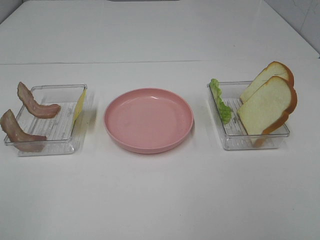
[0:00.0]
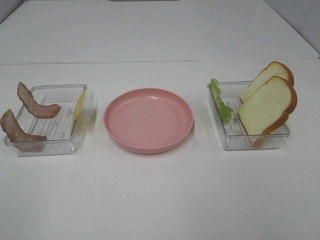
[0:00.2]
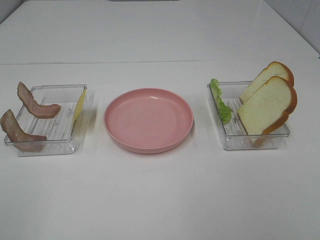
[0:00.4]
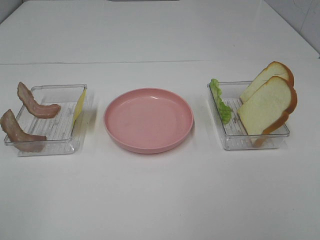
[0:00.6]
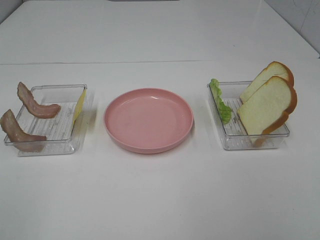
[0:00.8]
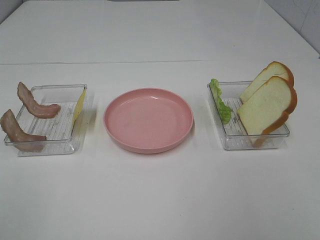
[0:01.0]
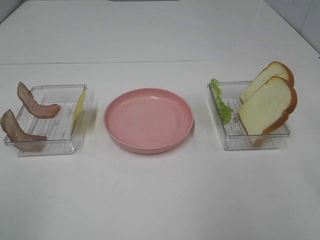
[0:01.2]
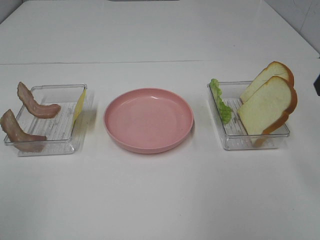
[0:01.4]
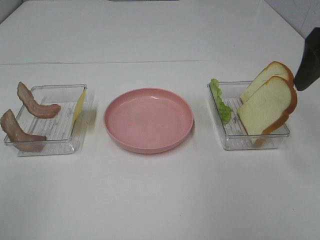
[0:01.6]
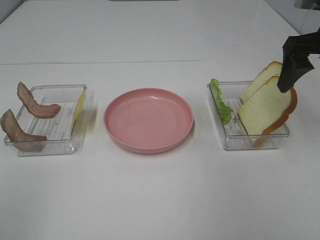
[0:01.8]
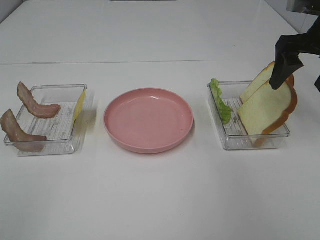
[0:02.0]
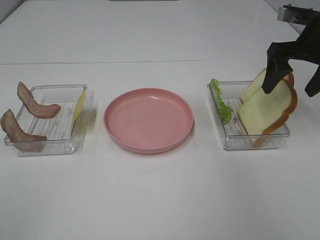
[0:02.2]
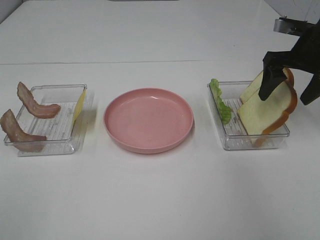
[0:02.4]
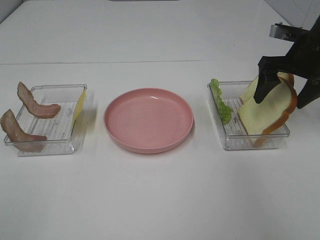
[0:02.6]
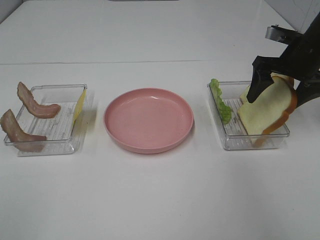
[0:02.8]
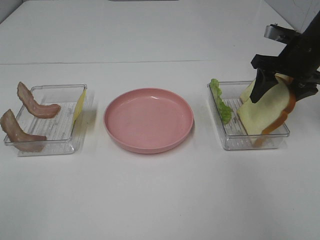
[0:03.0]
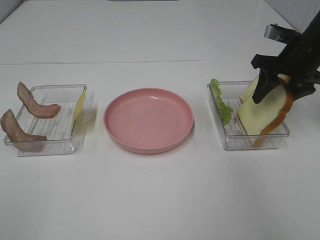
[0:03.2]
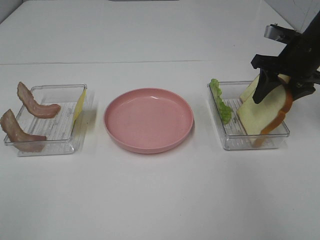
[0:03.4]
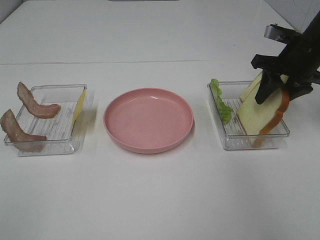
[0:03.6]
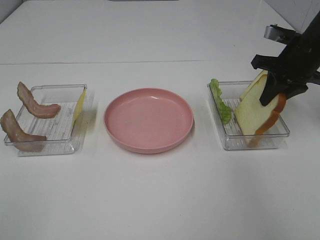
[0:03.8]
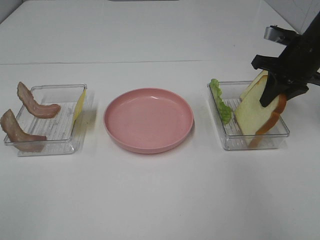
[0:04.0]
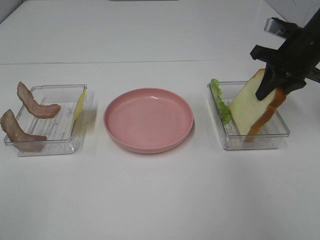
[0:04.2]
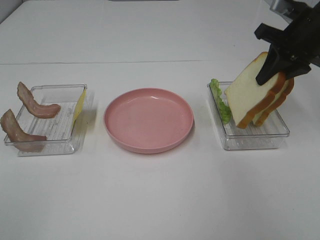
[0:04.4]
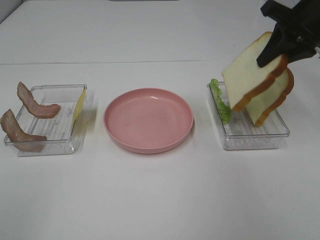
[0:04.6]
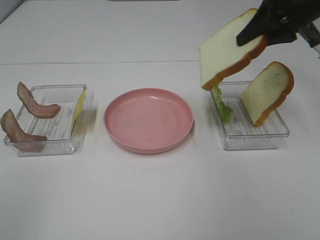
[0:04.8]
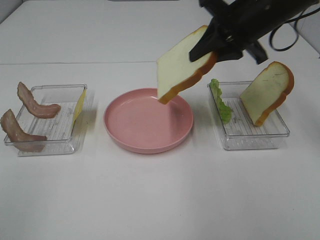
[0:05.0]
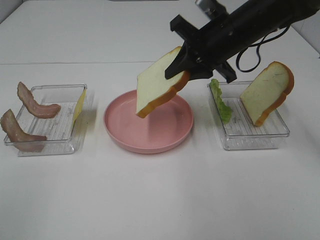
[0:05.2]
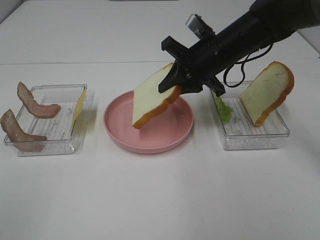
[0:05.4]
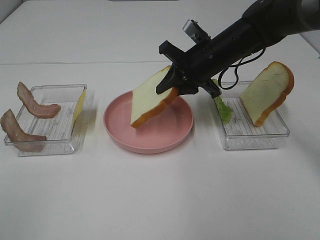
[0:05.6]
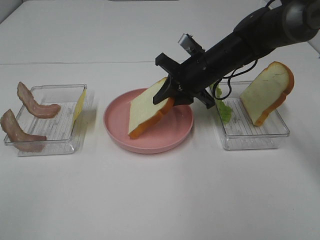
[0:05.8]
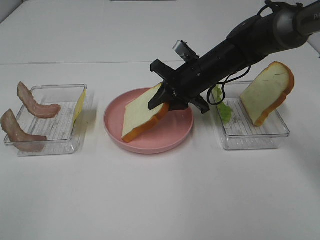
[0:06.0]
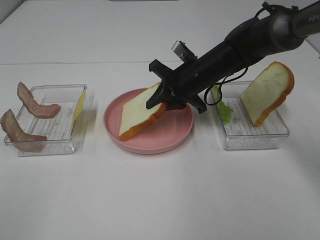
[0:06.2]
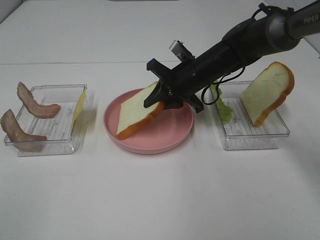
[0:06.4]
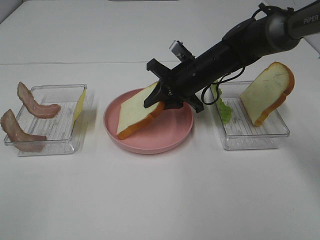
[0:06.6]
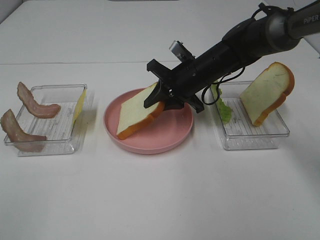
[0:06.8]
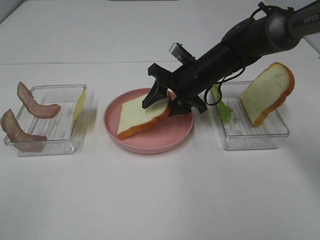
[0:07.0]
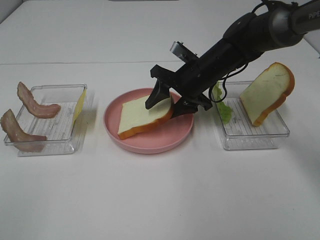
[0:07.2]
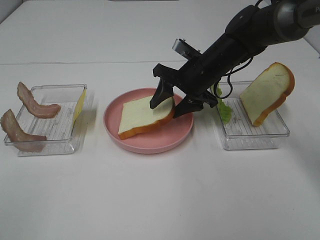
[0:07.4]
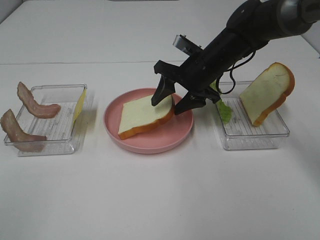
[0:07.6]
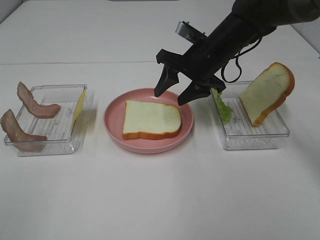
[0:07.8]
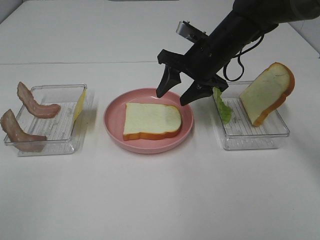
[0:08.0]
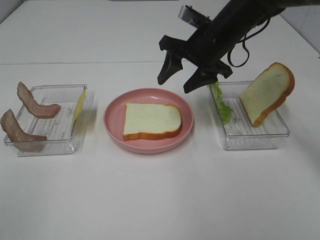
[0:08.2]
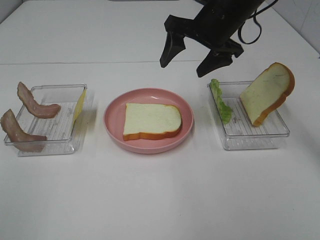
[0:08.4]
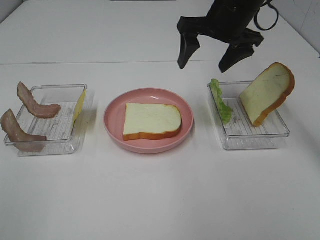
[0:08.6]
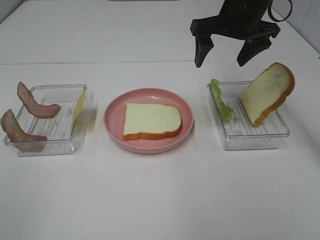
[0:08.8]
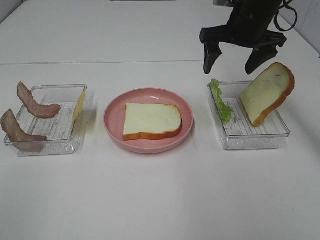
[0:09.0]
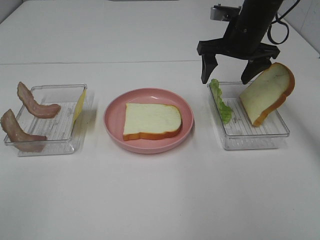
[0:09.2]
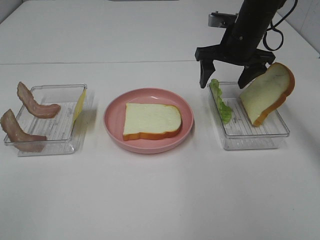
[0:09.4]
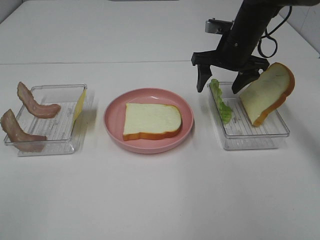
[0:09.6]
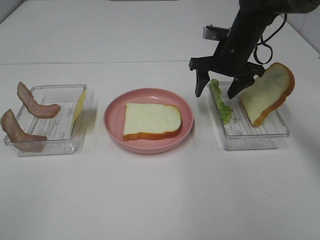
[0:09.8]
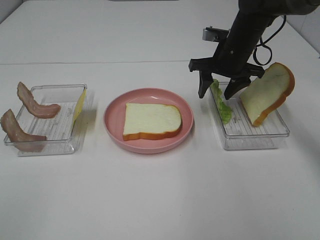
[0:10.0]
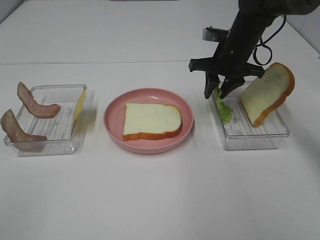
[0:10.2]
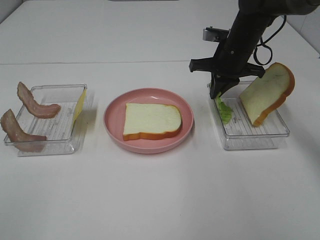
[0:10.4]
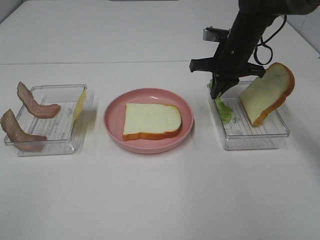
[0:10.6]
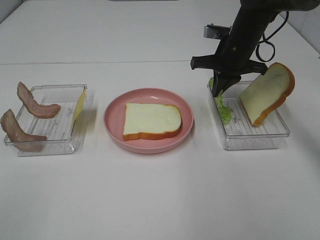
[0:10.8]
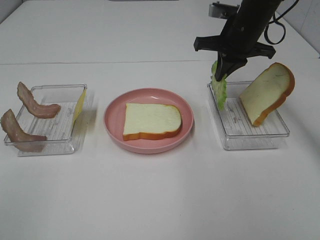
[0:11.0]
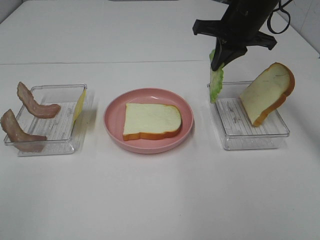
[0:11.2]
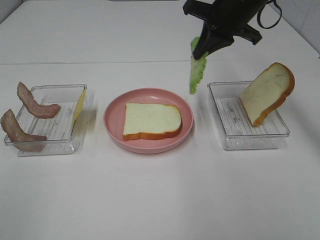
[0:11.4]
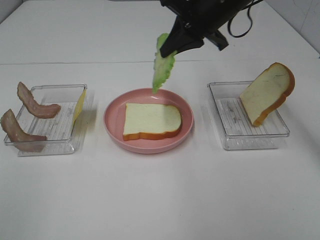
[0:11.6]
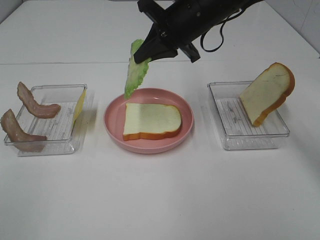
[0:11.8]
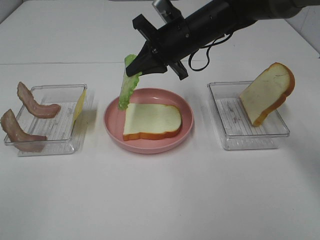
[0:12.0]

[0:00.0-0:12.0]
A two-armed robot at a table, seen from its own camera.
Task of the whole recording: Make sandwiches.
Step, 0:00.0 to 0:03.8: Right hand:grab the bread slice.
Step, 0:04.0 to 0:07.6: Right hand:place the bread slice on the plate.
Step, 0:07.8 to 0:10.4: Right hand:grab the lettuce slice.
0:00.0 to 0:01.6: The right gripper travels forward by approximately 30 cm.
0:01.6 to 0:03.0: The right gripper moves downward and forward, roughly 15 cm.
0:03.0 to 0:04.4: The right gripper is displaced upward by about 5 cm, and closes up.
0:04.4 to 0:06.0: The right gripper goes roughly 20 cm to the left and downward.
0:06.0 to 0:07.6: The right gripper opens its fingers.
0:07.6 to 0:09.0: The right gripper moves upward and to the right, about 10 cm.
0:09.0 to 0:10.4: The right gripper moves downward, approximately 5 cm, and closes up.
0:10.4 to 0:12.0: The right gripper shifts approximately 10 cm to the left, and reaches about 10 cm upward, then returns.

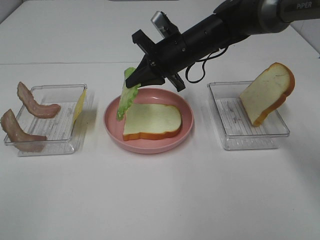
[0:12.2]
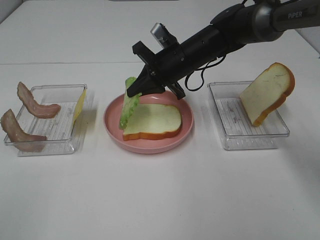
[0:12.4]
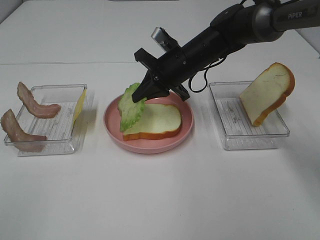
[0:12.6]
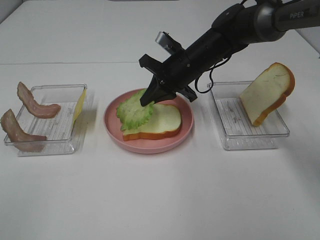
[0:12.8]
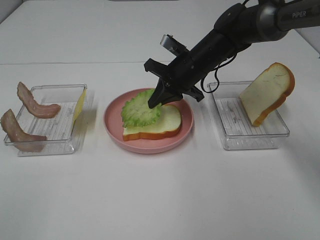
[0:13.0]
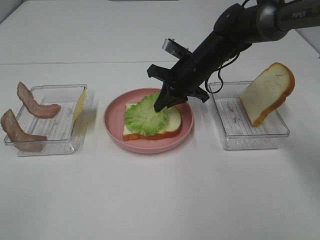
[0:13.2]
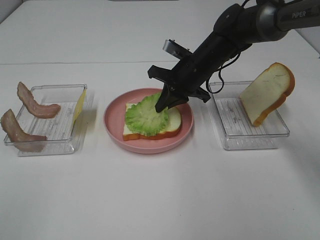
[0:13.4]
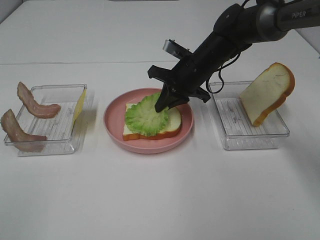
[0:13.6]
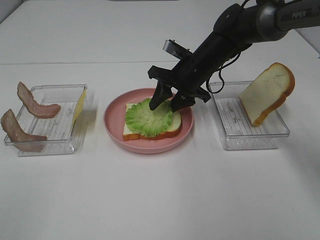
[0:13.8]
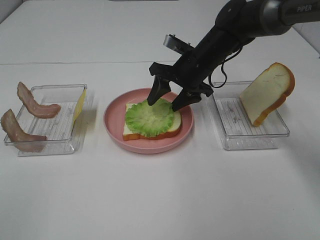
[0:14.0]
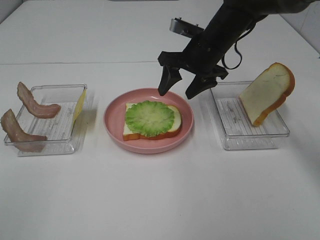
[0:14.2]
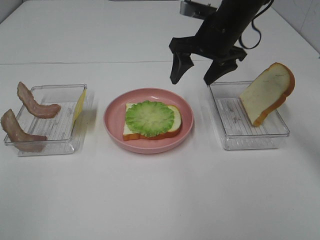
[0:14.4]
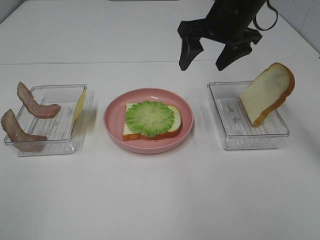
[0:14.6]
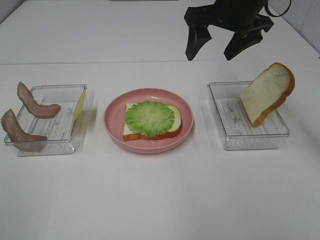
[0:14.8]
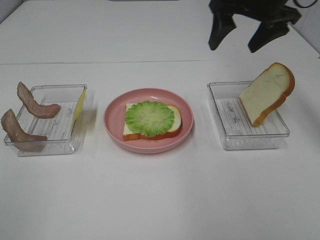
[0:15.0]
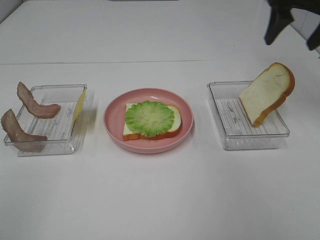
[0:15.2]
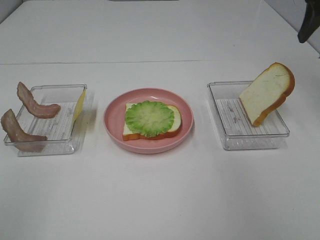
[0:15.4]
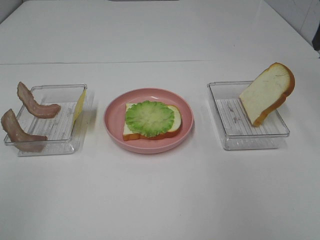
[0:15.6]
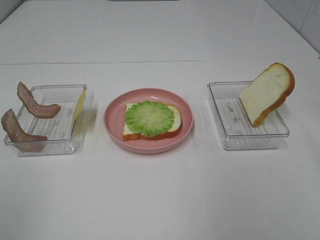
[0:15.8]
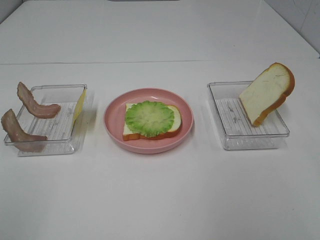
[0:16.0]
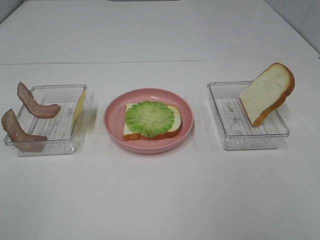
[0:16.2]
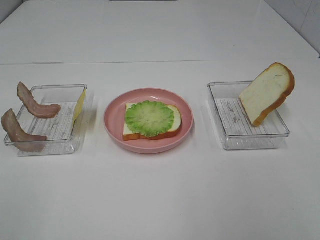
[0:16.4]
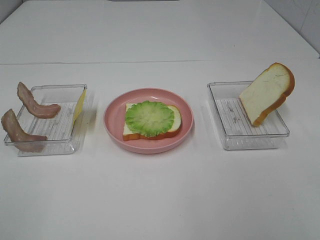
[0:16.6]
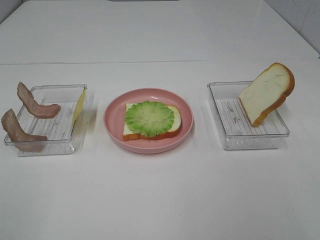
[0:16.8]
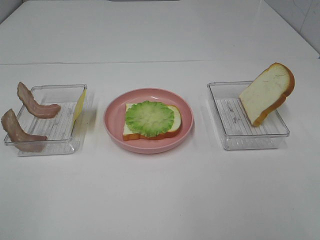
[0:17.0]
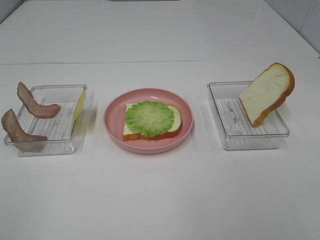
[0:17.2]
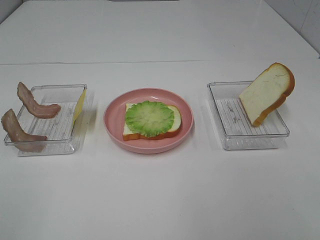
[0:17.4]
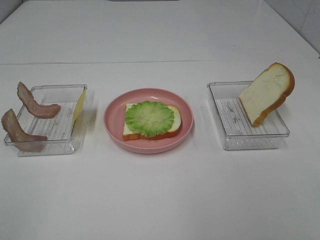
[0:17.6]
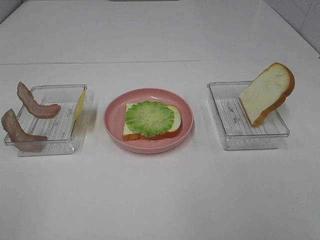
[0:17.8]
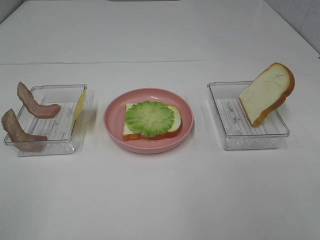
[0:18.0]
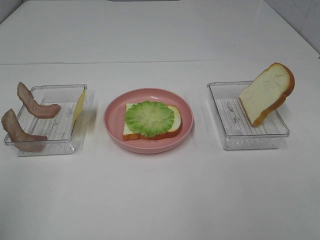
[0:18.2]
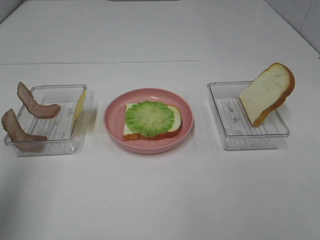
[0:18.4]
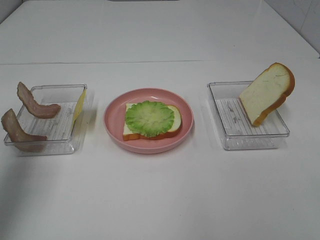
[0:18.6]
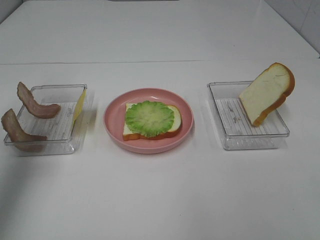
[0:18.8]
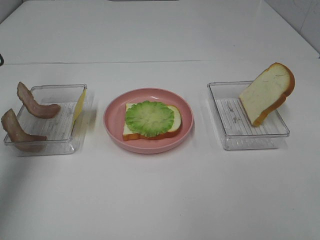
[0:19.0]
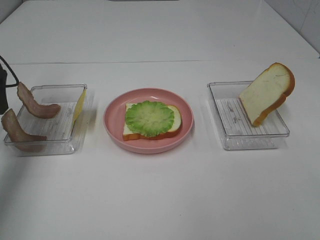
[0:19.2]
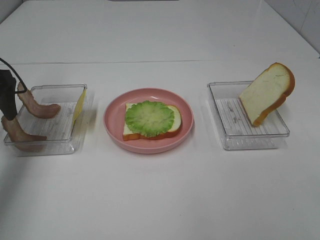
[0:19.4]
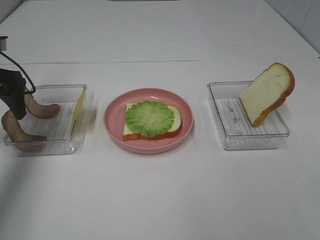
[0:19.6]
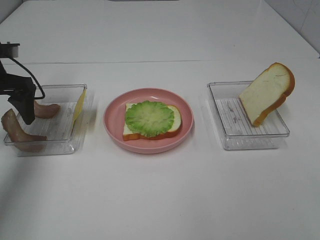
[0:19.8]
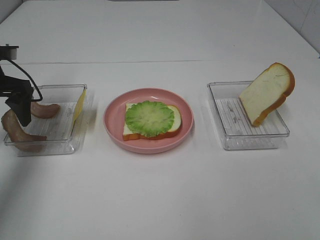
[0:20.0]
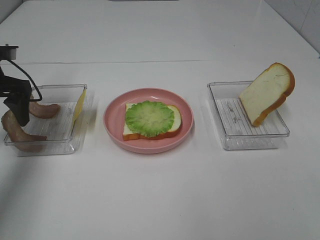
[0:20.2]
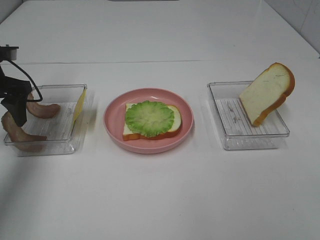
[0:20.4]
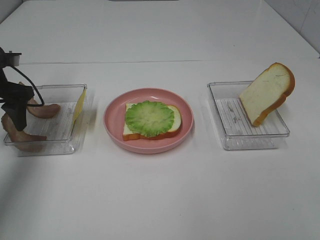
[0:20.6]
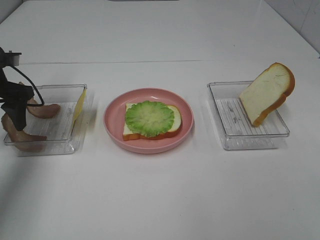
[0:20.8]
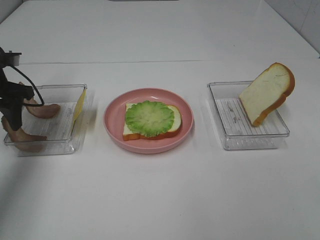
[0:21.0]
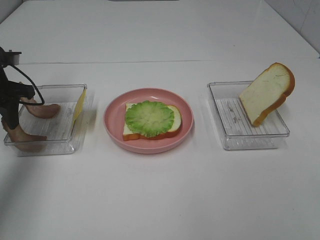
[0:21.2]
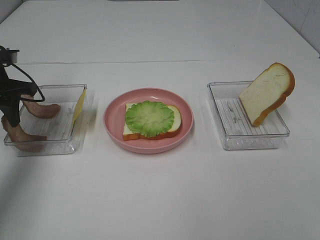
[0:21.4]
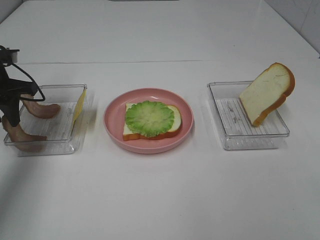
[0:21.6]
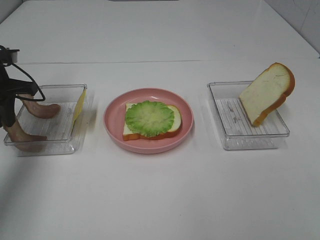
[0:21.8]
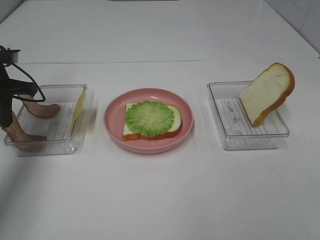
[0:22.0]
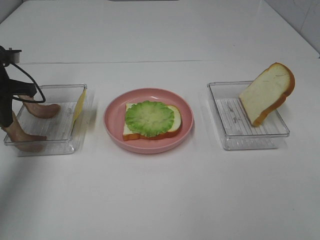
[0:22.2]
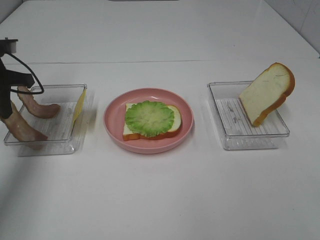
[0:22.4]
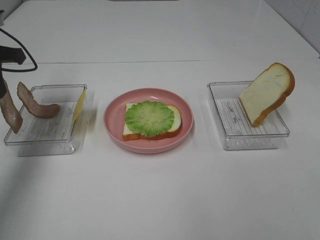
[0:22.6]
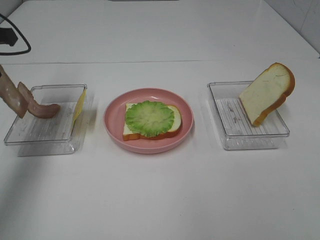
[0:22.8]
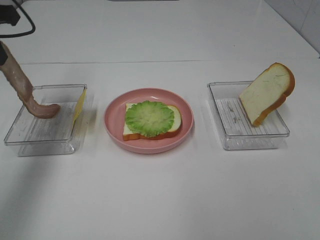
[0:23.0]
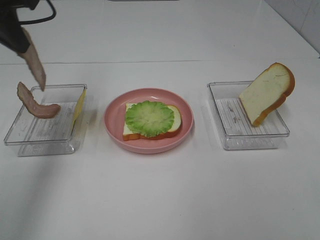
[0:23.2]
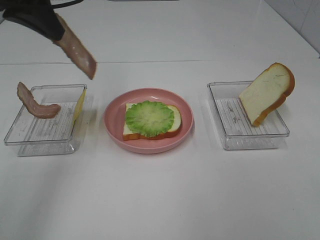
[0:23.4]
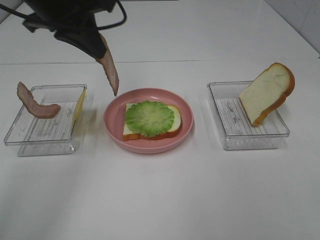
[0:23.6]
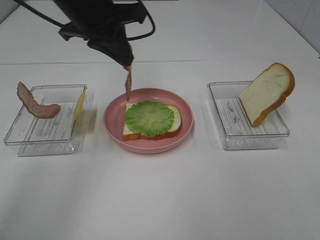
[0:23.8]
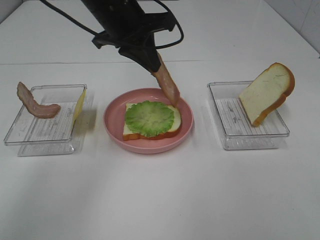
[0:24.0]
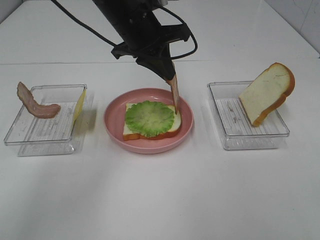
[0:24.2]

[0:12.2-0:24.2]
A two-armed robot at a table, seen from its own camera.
Task of the whole recording: Make sandwiches.
Step, 0:12.2 to 0:14.0: Right hand:place the lettuce slice on the bread slice.
Step, 0:14.2 to 0:22.2: Left hand:grab the bacon.
0:12.2 to 0:13.8: The right gripper opens its fingers.
0:13.8 to 0:15.2: The right gripper travels to the right and upward by approximately 25 cm.
0:15.2 to 0:16.6: The right gripper heads backward, covering about 35 cm.
0:18.2 to 0:19.8: The left gripper moves forward, about 35 cm.
0:19.8 to 0:21.2: The left gripper closes its fingers.
0:21.2 to 0:22.6: The left gripper is displaced upward by some 10 cm, and closes up.
0:22.6 to 0:24.2: The left gripper shifts roughly 25 cm to the right.
